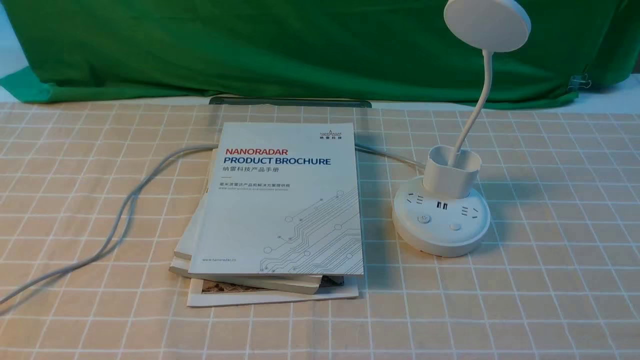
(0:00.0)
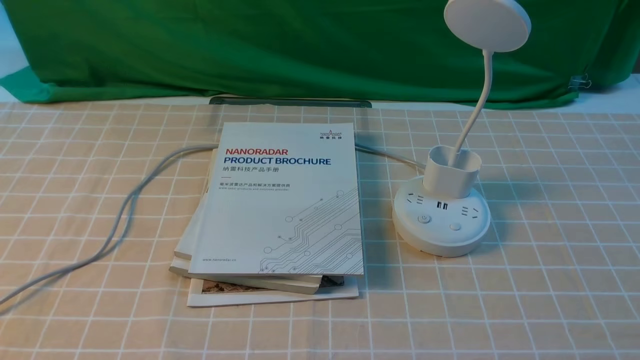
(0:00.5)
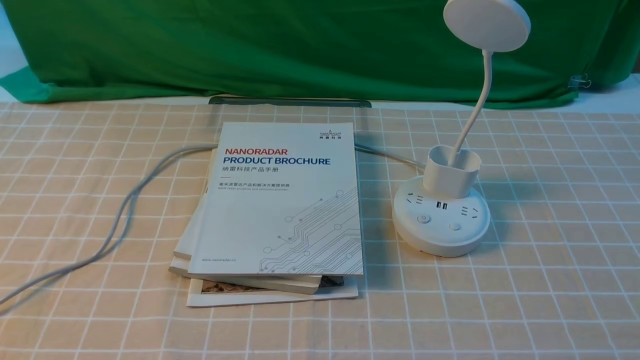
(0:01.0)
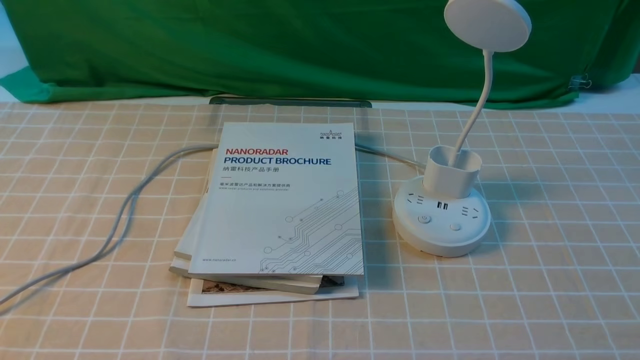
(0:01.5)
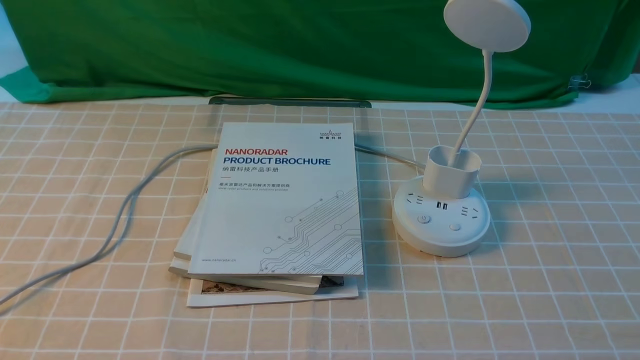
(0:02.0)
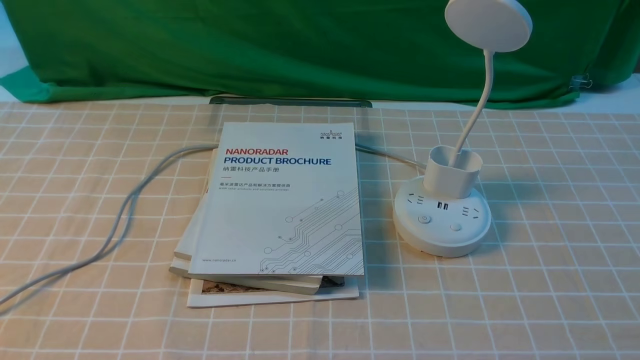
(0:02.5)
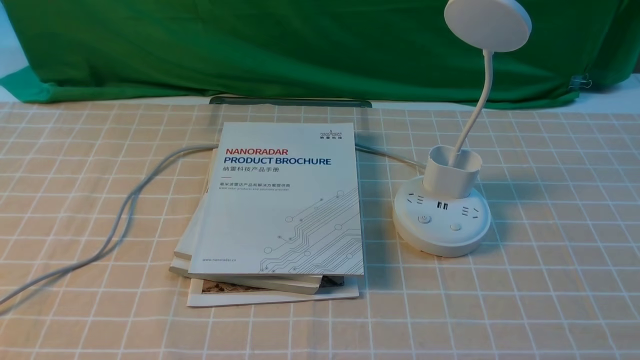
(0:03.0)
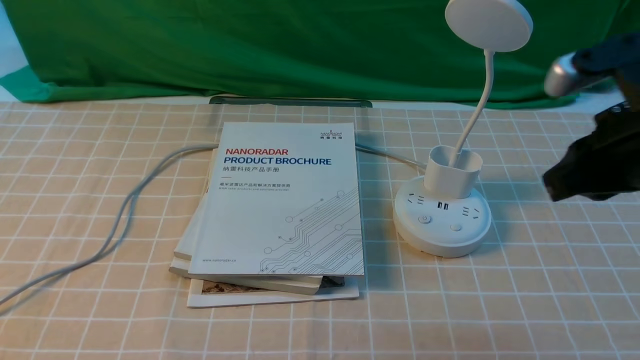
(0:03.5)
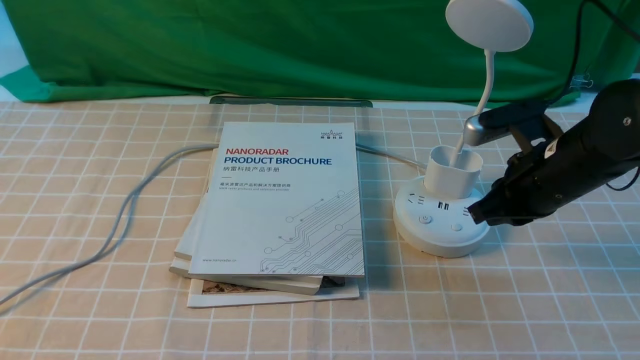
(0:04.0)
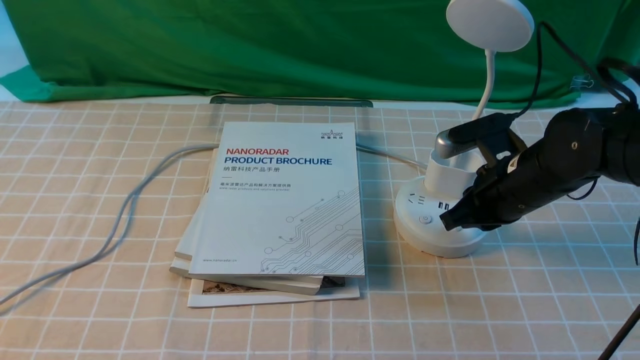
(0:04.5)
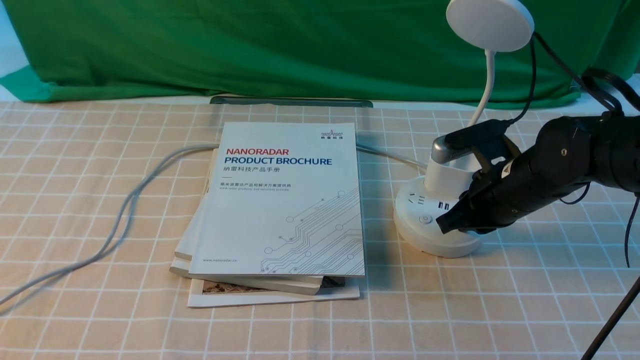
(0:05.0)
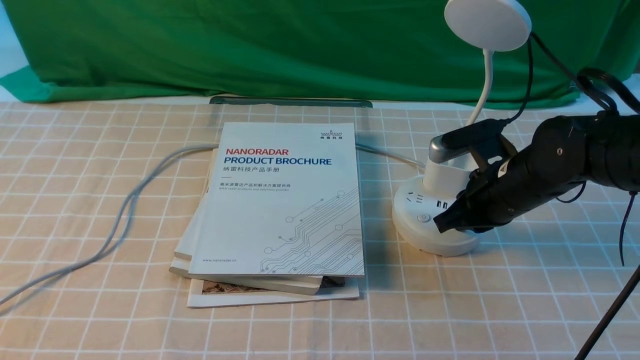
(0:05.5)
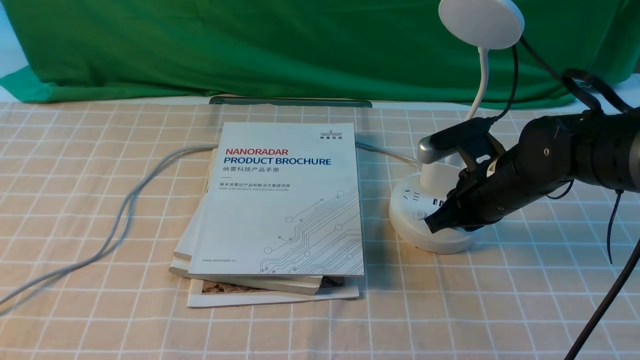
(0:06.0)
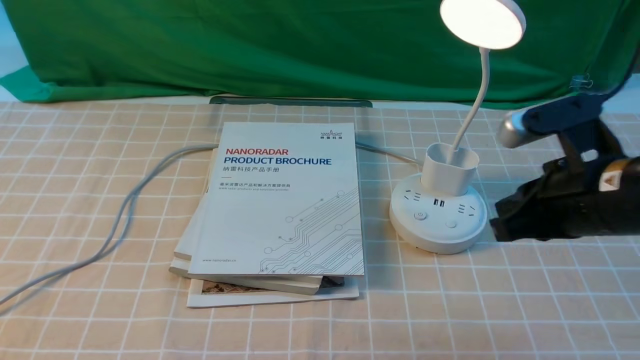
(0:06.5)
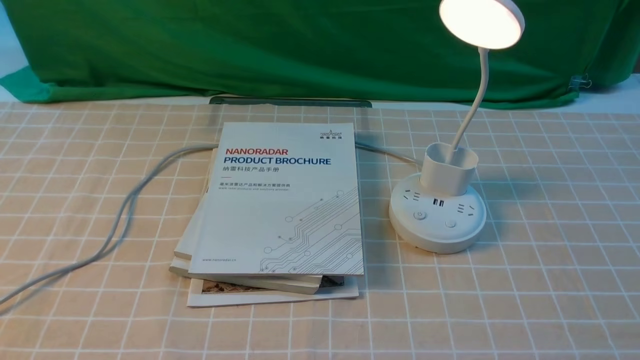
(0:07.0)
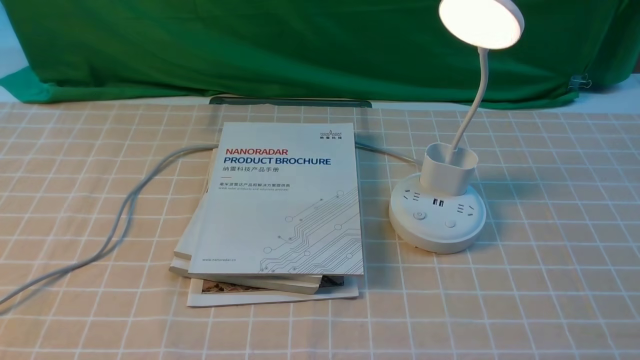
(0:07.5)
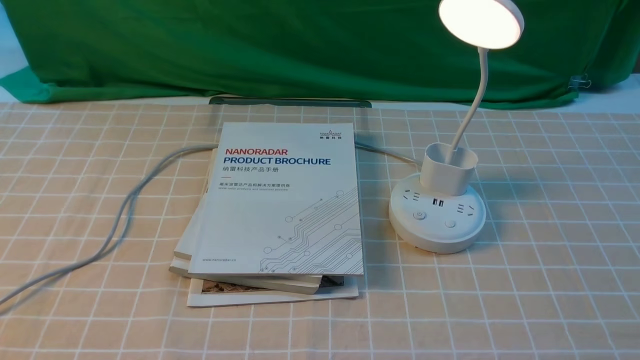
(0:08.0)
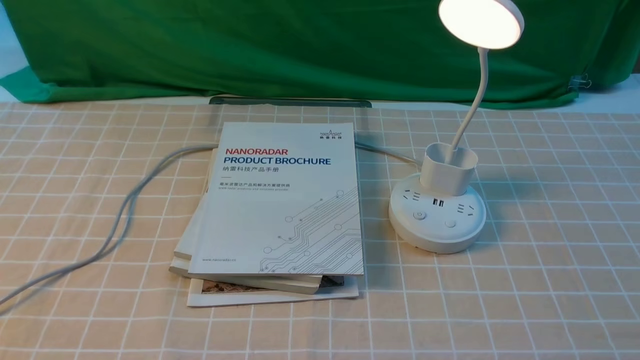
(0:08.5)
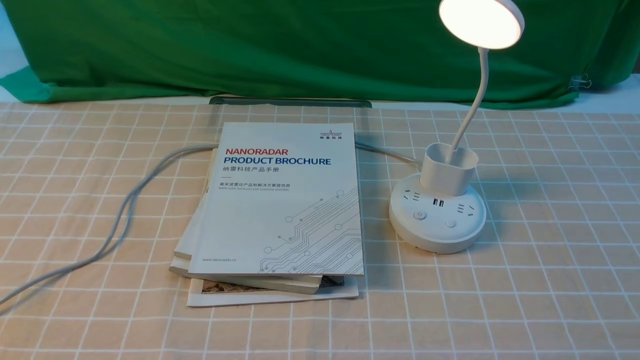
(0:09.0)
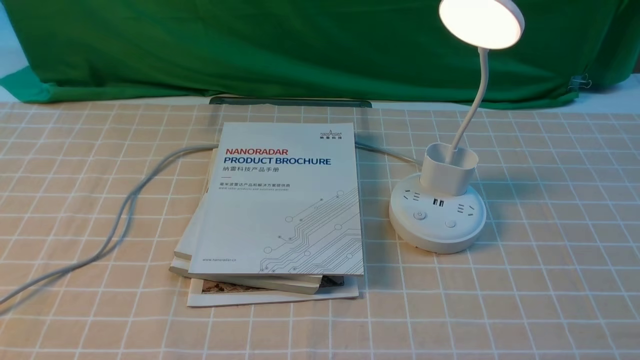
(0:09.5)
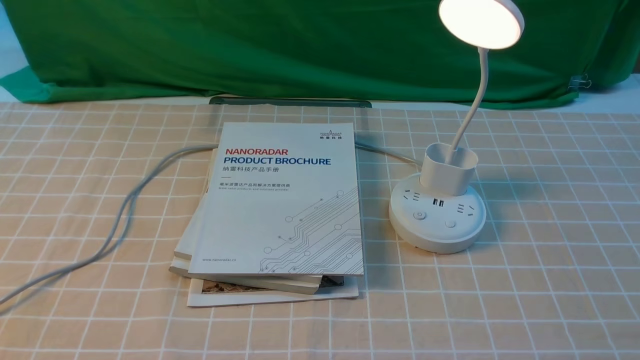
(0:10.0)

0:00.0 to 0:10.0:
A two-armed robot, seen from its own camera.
Step, 0:00.0 to 0:06.5: use the right arm to press the button switch on the lamp holder.
0:02.0 to 0:04.0: The right gripper heads forward and to the left, covering about 30 cm, and closes up.
0:04.0 to 0:06.0: The right gripper ends up some 5 cm from where it was.
0:06.0 to 0:08.0: The right gripper is displaced backward and to the right by roughly 30 cm, and opens.
